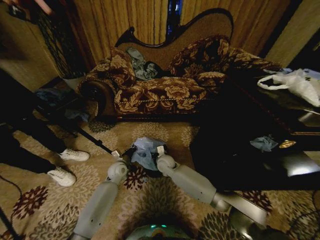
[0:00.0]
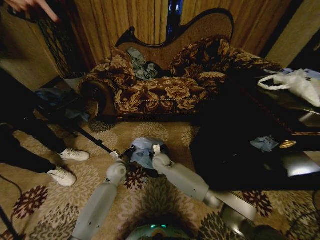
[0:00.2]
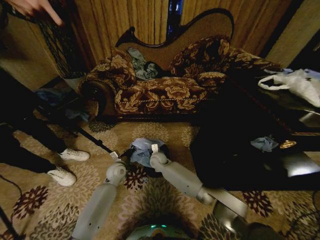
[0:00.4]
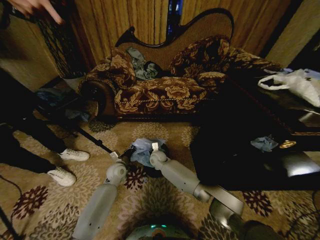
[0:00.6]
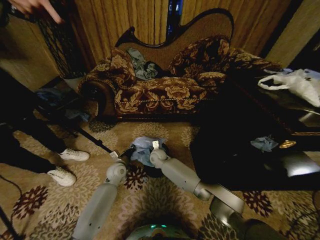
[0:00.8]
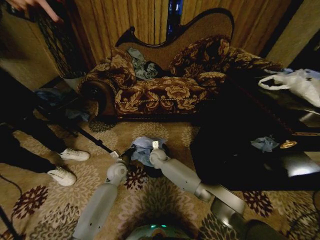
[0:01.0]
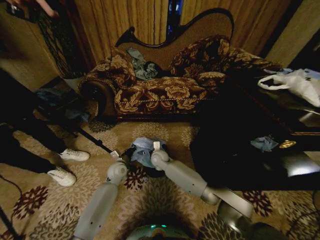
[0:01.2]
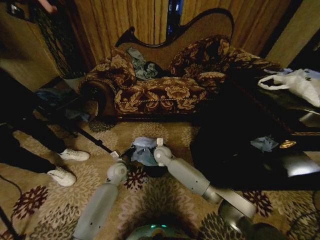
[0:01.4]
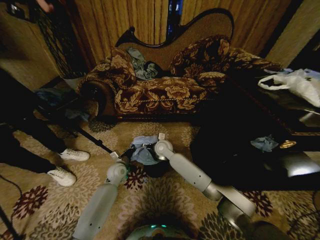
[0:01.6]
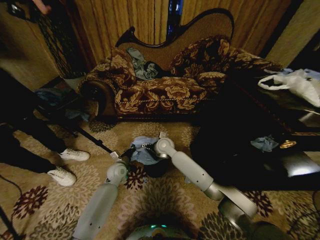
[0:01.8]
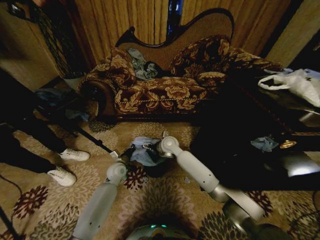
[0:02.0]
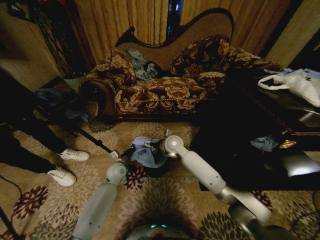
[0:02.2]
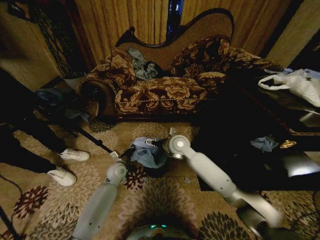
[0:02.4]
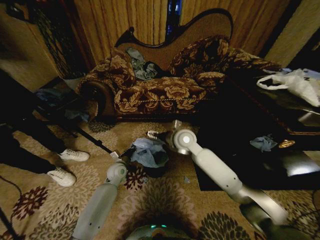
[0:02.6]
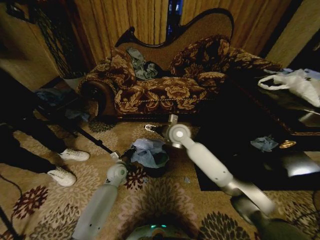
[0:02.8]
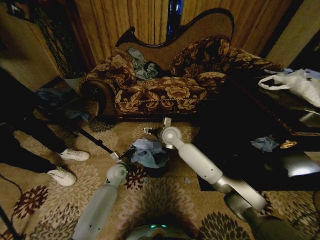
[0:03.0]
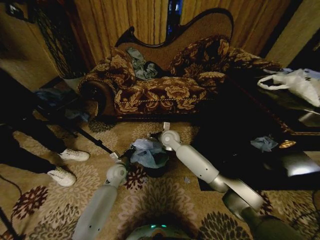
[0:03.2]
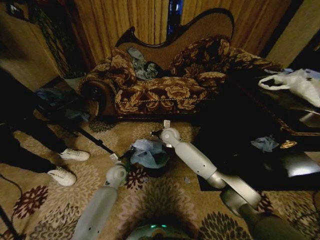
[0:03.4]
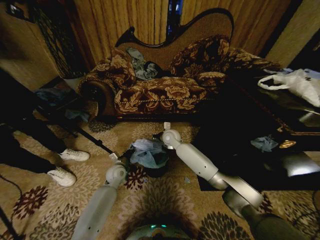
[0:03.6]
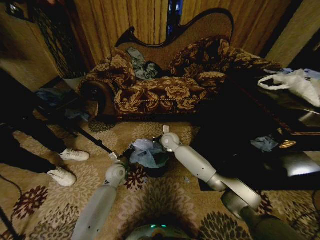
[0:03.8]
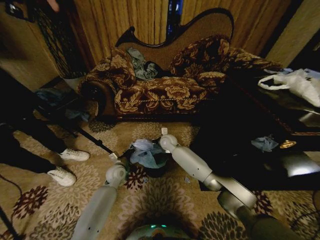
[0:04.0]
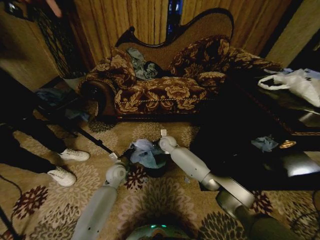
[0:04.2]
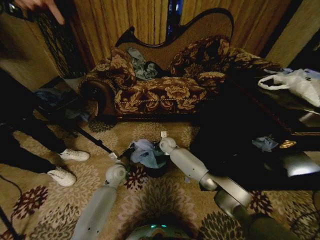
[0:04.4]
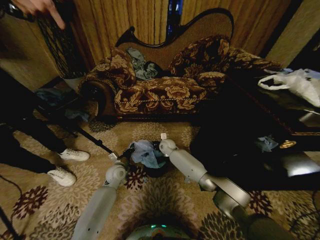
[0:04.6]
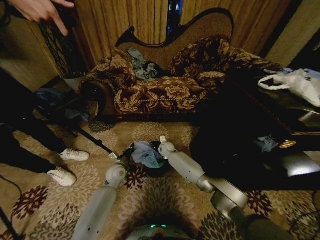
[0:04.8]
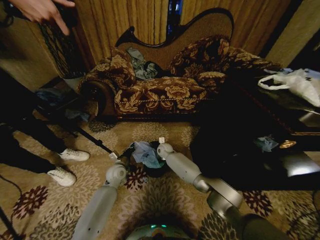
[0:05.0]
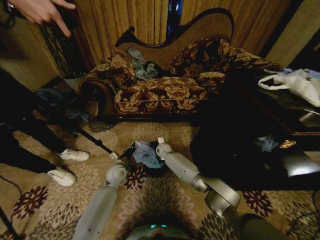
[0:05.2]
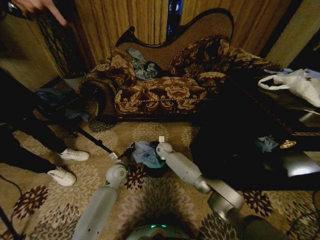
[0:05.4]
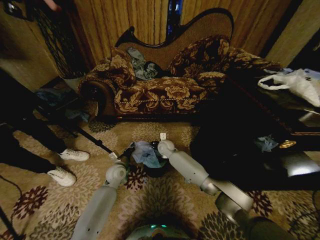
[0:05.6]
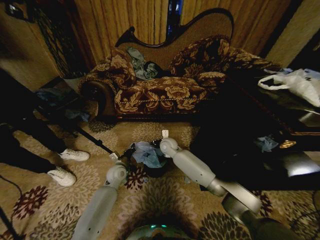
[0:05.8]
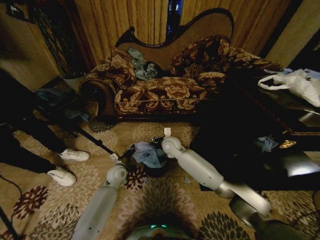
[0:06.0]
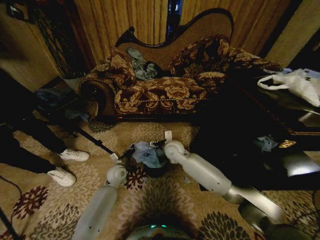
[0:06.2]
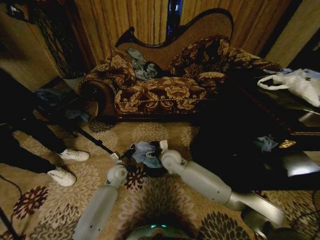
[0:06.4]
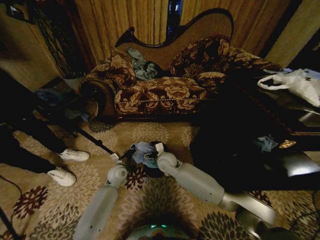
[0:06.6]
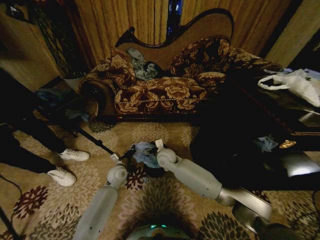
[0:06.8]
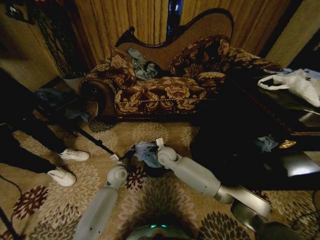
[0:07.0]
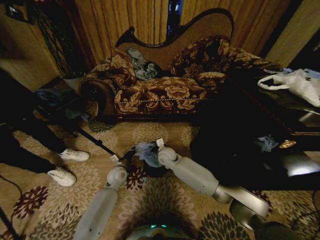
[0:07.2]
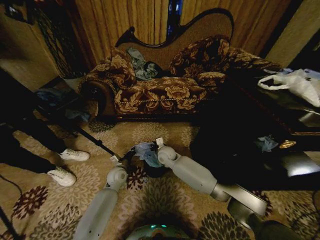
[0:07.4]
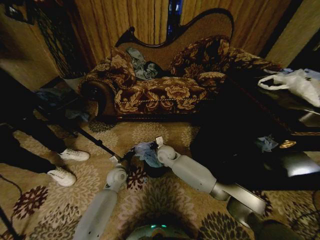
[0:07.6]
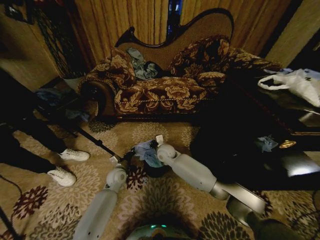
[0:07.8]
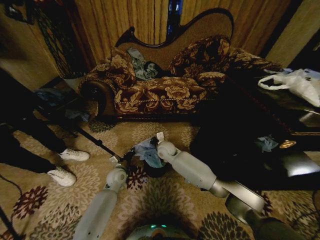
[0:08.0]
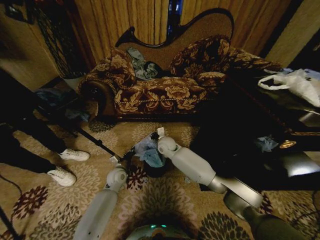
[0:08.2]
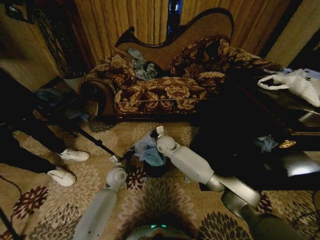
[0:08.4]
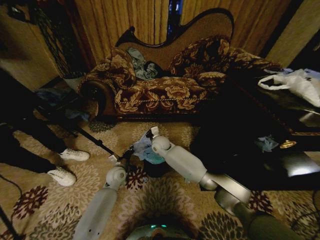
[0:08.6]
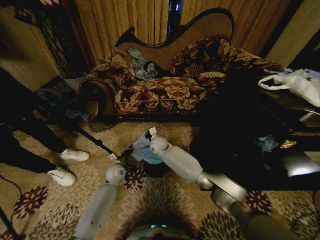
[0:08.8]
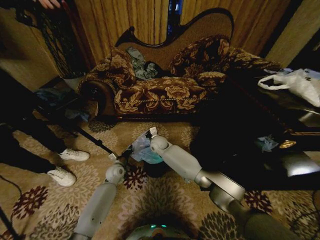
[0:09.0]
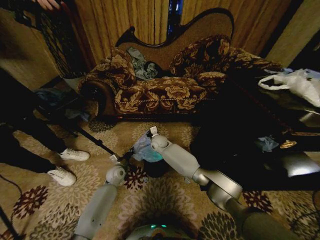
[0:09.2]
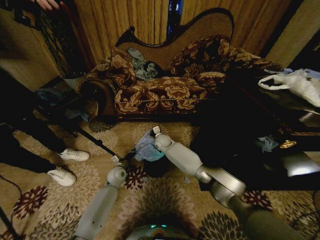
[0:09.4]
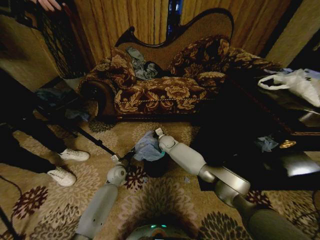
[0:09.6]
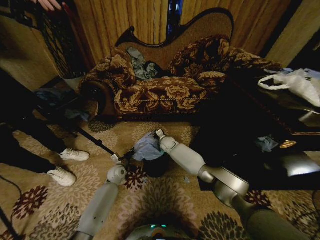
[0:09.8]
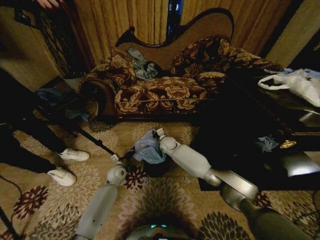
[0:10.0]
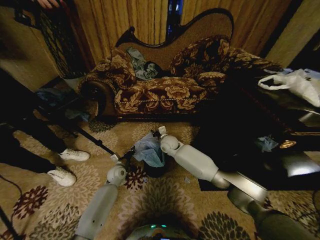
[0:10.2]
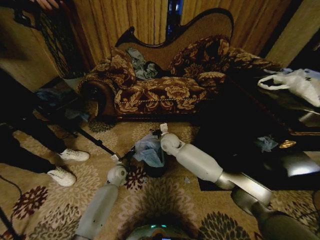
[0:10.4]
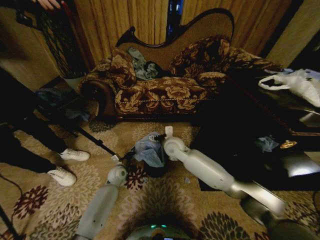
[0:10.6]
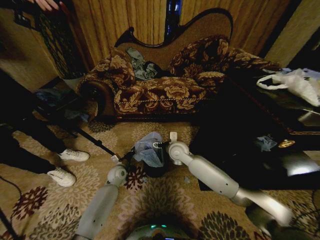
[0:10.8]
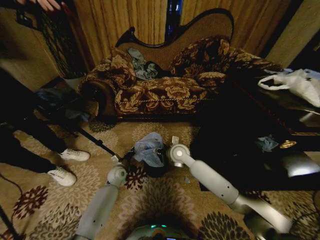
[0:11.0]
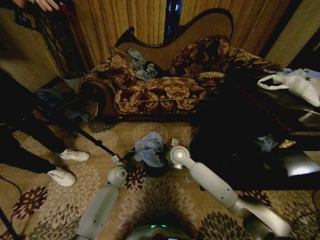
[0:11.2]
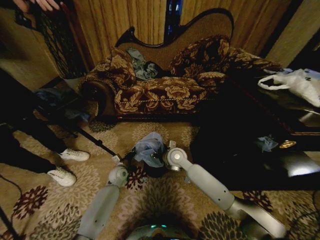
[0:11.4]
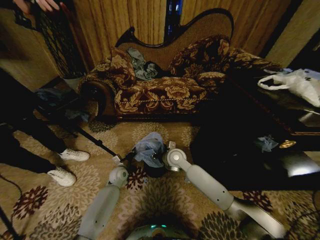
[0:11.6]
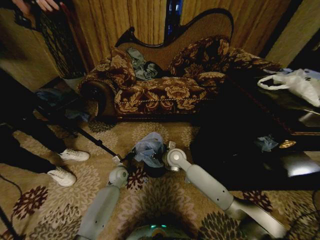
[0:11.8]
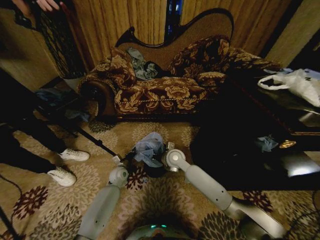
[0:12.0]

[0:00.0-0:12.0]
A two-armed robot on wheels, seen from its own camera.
Task of the whole recording: Place a garbage bag over the trash bin.
0.0 to 1.6 s: The right gripper is displaced upward by roughly 10 cm.
1.6 to 3.0 s: The right gripper heads upward, covering some 10 cm.
3.0 to 4.4 s: The right gripper is displaced downward and forward by roughly 15 cm, and closes its fingers.
4.4 to 6.0 s: The right gripper shifts some 10 cm upward and backward, and opens up.
6.0 to 7.6 s: The right gripper is displaced downward by approximately 5 cm, and closes its fingers.
7.6 to 9.0 s: The right gripper heads forward, covering about 5 cm.
9.0 to 10.4 s: The right gripper moves to the right and upward, approximately 10 cm, and opens up.
10.4 to 12.0 s: The right gripper is displaced backward by roughly 10 cm, and closes its fingers.

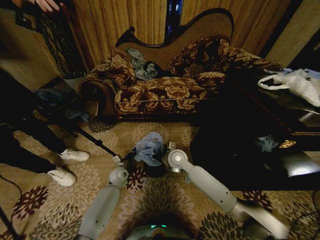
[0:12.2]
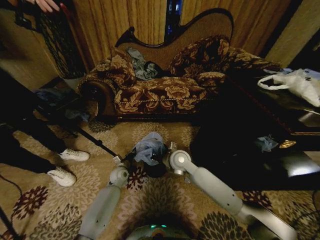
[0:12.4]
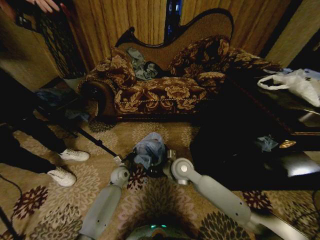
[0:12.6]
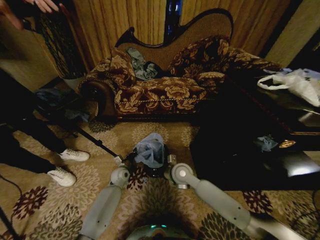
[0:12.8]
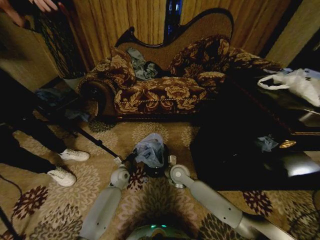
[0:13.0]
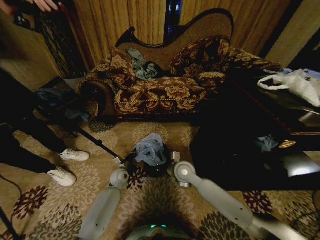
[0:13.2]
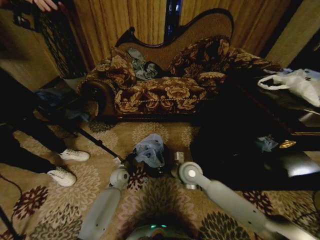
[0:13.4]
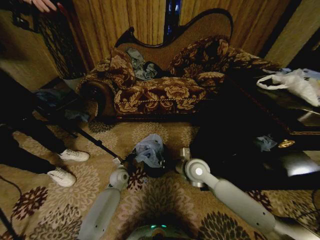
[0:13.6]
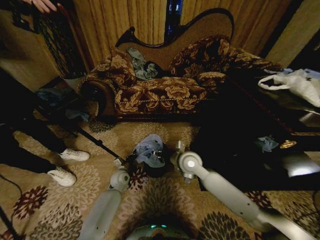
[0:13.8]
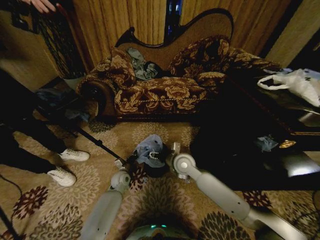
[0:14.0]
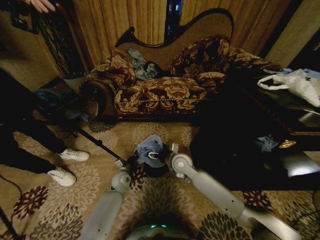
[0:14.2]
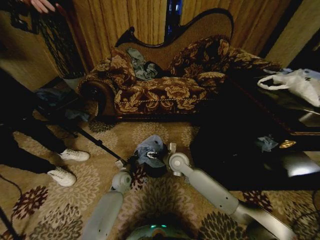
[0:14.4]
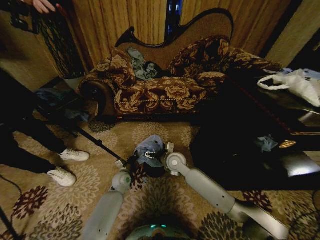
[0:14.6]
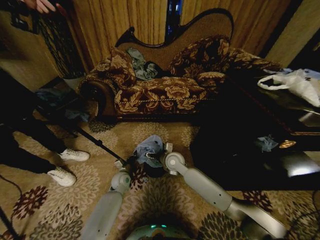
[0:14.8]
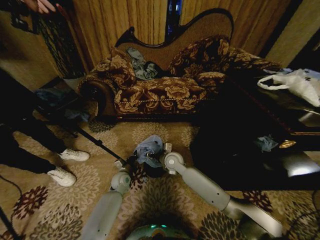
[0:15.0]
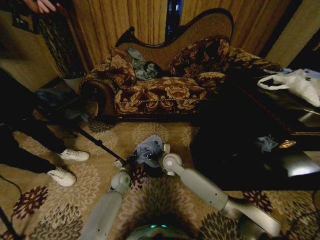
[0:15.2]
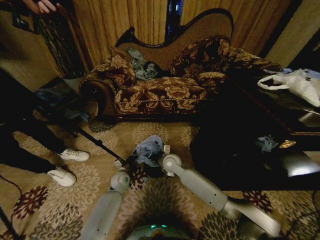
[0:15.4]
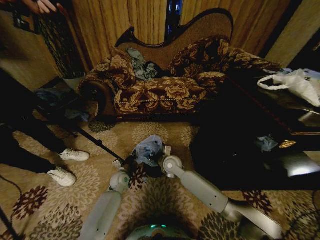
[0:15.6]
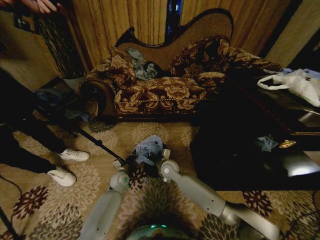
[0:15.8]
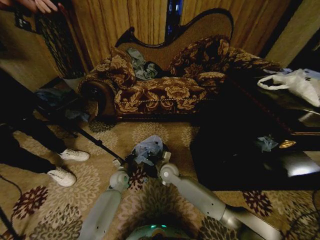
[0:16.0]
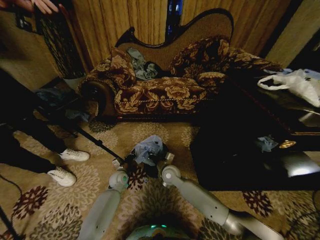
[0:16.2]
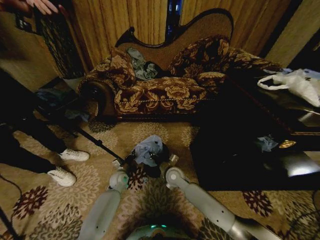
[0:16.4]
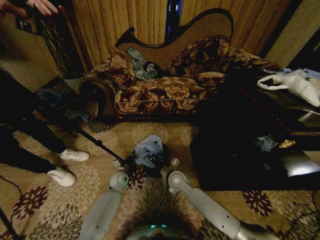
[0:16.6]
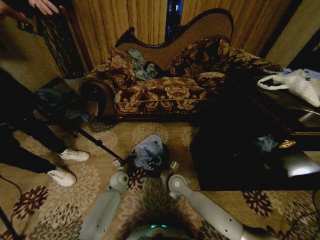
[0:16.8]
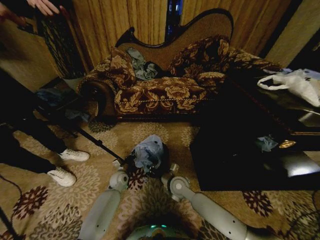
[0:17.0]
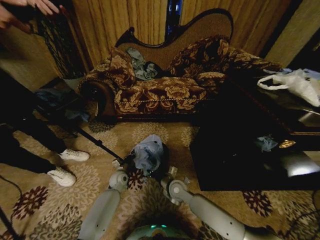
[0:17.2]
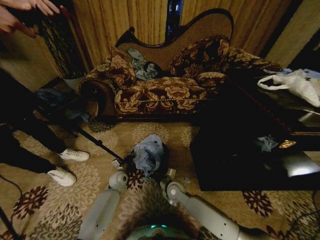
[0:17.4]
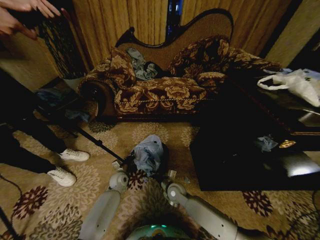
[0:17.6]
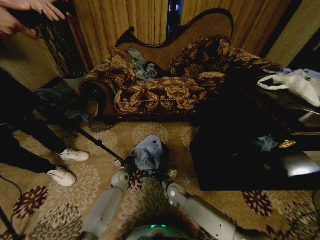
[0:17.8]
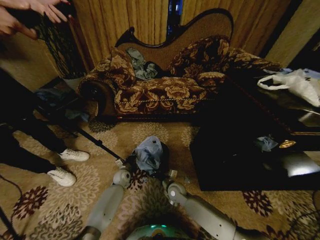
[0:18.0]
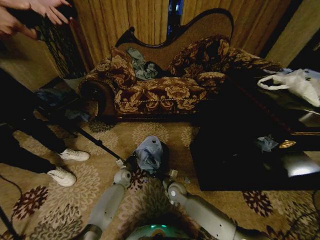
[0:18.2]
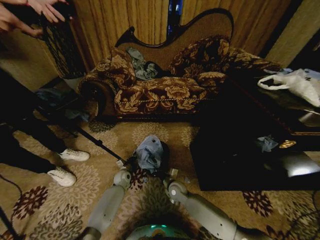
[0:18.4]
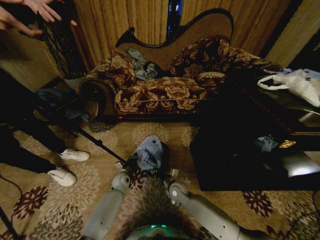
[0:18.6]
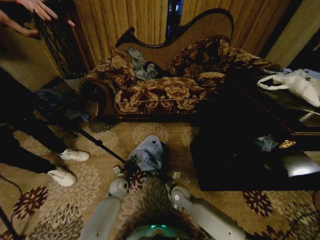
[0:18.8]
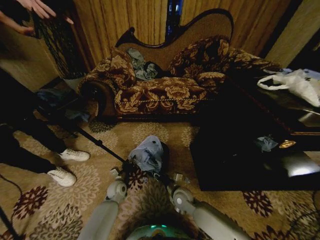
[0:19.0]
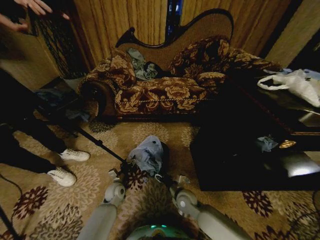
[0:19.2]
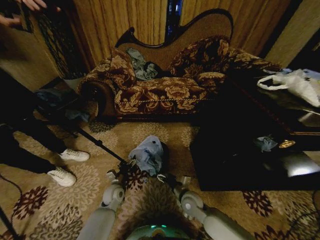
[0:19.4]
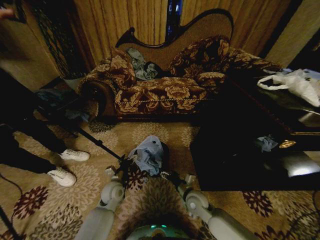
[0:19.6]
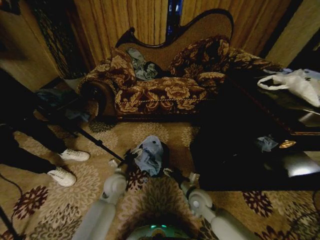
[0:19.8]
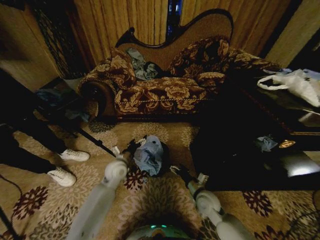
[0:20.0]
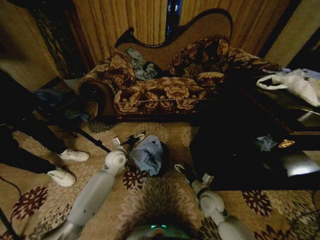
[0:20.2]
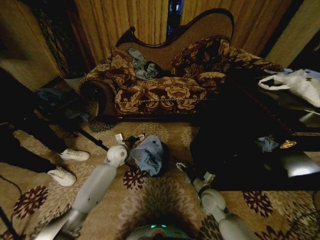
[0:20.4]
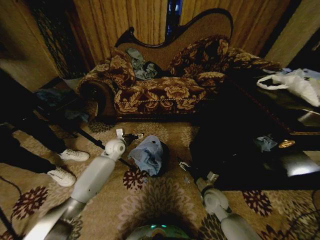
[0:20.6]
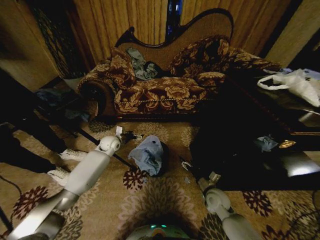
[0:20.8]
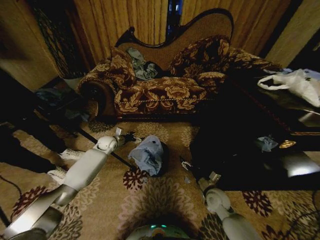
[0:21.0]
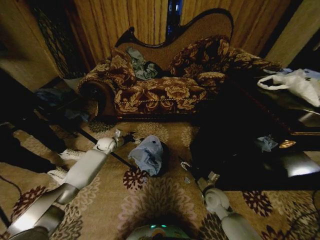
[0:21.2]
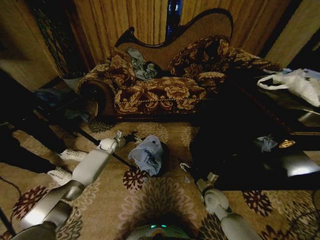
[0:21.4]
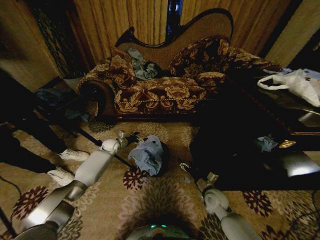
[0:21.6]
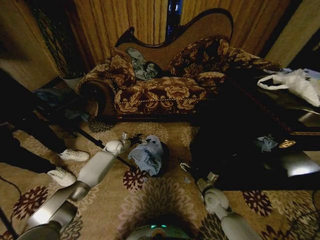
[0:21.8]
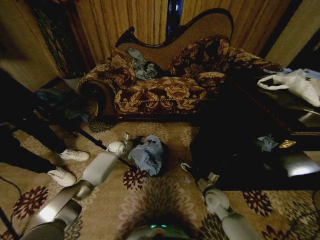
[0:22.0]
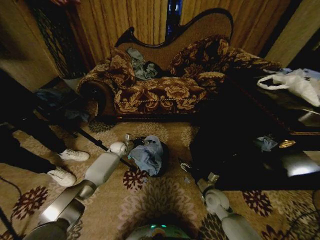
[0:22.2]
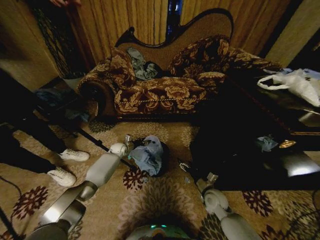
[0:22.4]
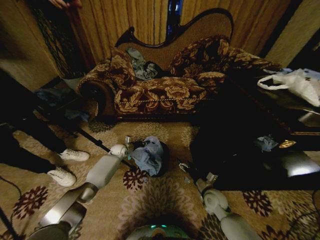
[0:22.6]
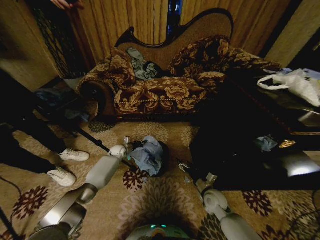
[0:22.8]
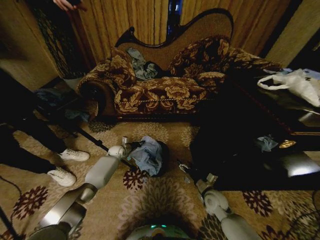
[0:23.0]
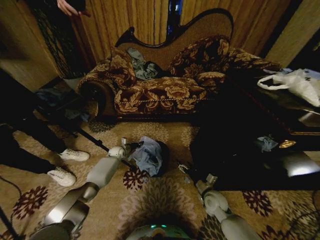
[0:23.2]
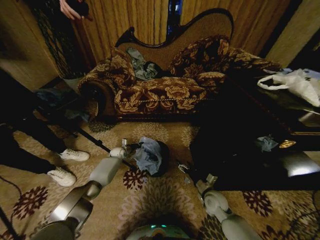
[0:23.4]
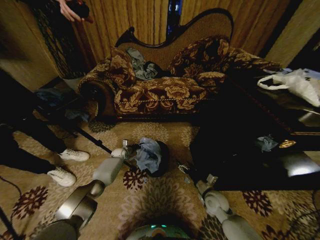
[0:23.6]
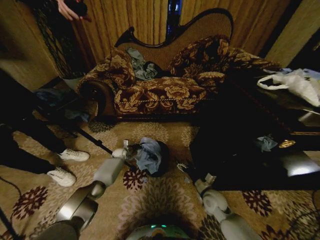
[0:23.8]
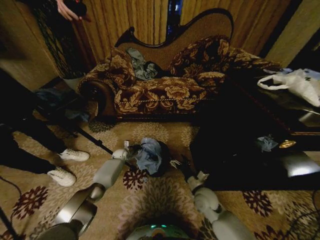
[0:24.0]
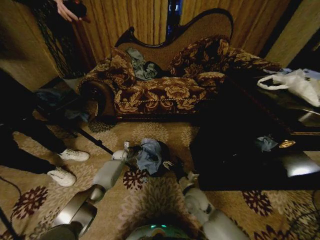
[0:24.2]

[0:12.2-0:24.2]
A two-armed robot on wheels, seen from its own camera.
Task of the whole recording: Place a garbage bag over the trash bin.
12.2 to 13.8 s: The right gripper ends up roughly 5 cm from where it was, and opens up.
13.8 to 15.2 s: The right gripper travels downward and to the left by roughly 10 cm, and opens, then closes again.
15.2 to 16.6 s: The right gripper goes some 10 cm backward and downward, and closes its fingers.
16.6 to 18.2 s: The right gripper goes about 10 cm downward. The left gripper changes place by approximately 5 cm.
18.2 to 19.8 s: The left gripper travels upward and backward by about 15 cm, and opens; the right gripper is displaced to the right, upward and backward by some 10 cm, and opens its fingers.
19.8 to 21.2 s: The left gripper moves forward and to the left, roughly 25 cm, while the right gripper is displaced to the right by roughly 10 cm.
21.2 to 22.6 s: The left gripper is displaced downward and to the right by approximately 10 cm, and closes its fingers.
22.6 to 24.2 s: The left gripper travels downward by some 5 cm. Meanwhile the right gripper travels to the left by roughly 10 cm.
